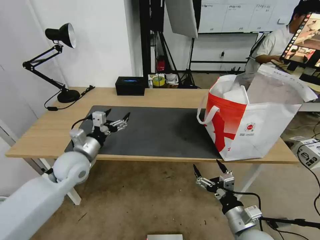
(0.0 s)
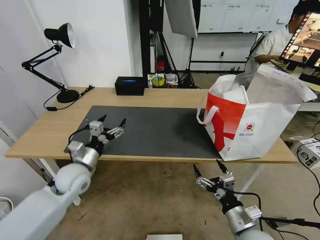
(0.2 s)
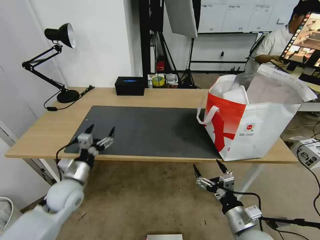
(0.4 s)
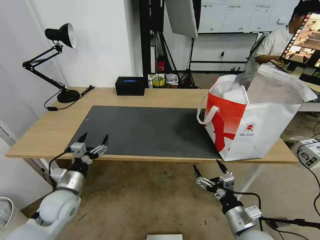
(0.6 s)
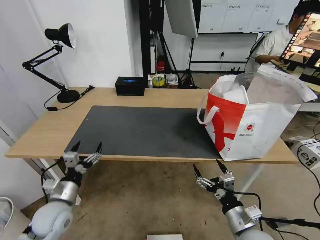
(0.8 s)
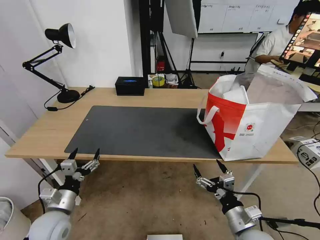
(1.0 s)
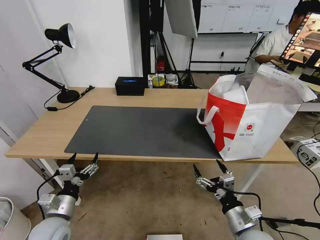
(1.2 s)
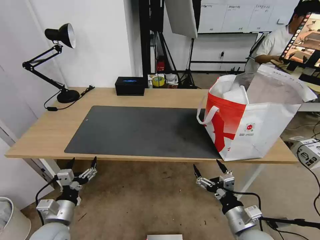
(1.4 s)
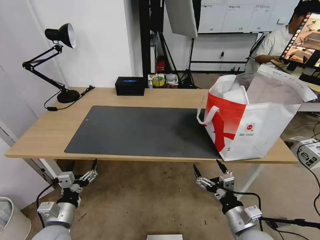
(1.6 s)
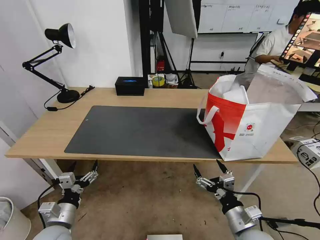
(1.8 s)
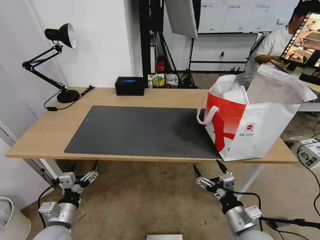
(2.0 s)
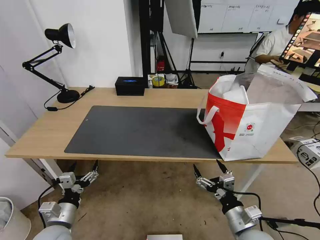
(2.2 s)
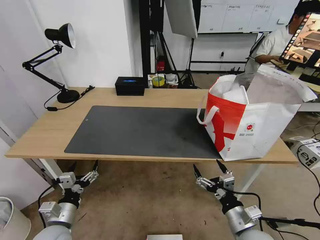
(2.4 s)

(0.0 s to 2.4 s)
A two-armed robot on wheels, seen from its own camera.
Task of the whole recording: Pick up the trash from the table and place it into the takeout bag.
0.0 s - 1.2 s: The left gripper shifts roughly 20 cm backward and downward.
1.2 s - 2.4 s: The grippers move only a little.

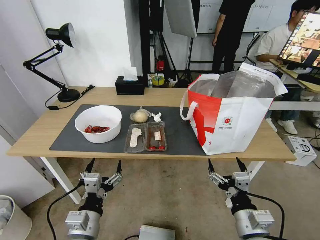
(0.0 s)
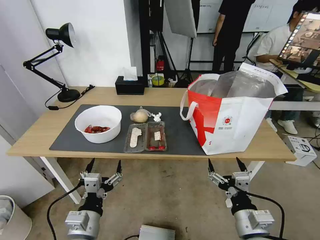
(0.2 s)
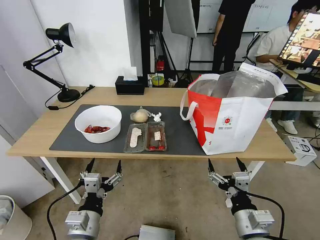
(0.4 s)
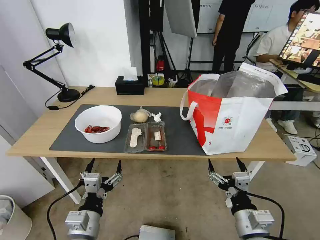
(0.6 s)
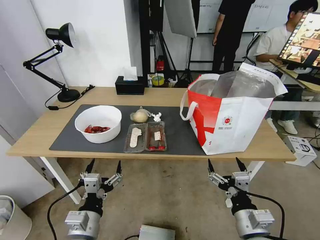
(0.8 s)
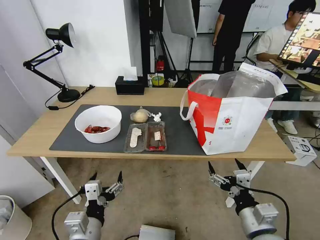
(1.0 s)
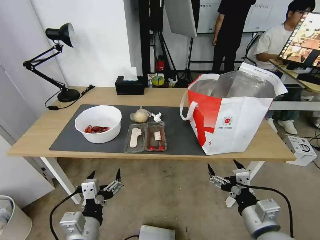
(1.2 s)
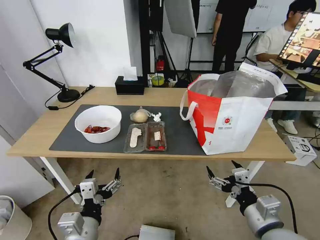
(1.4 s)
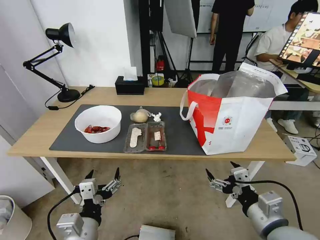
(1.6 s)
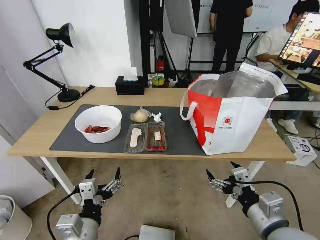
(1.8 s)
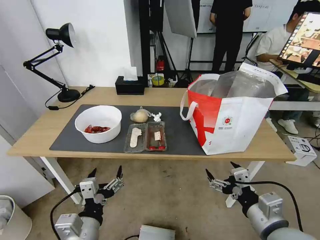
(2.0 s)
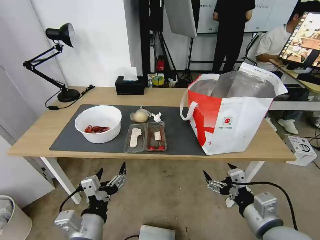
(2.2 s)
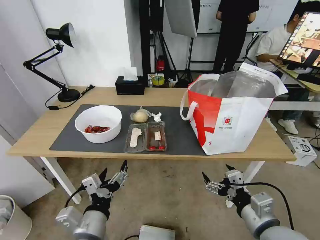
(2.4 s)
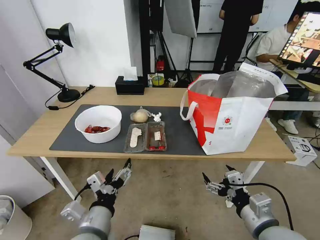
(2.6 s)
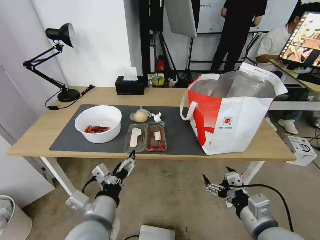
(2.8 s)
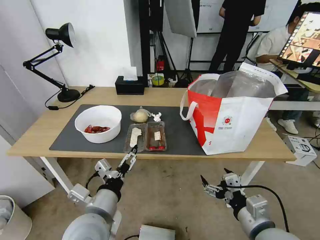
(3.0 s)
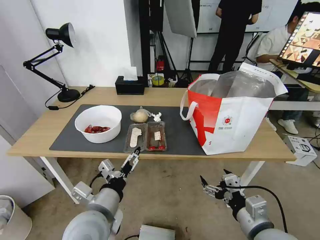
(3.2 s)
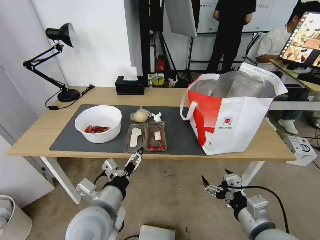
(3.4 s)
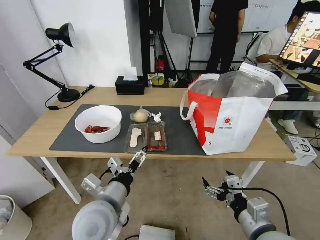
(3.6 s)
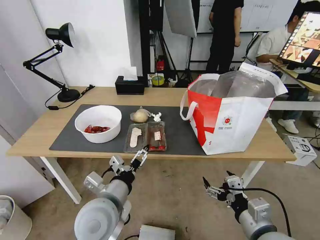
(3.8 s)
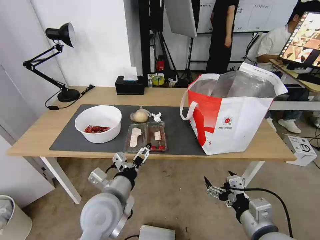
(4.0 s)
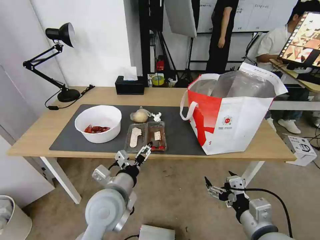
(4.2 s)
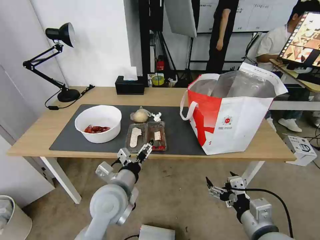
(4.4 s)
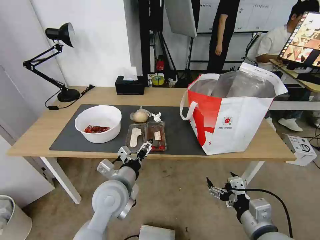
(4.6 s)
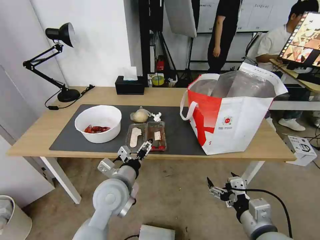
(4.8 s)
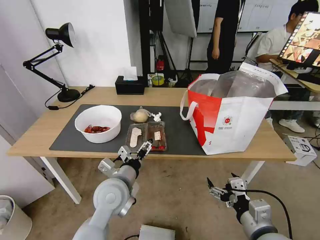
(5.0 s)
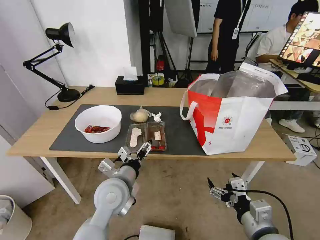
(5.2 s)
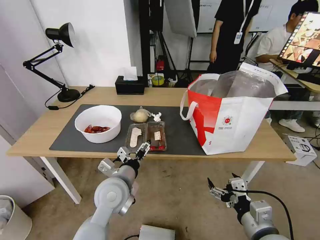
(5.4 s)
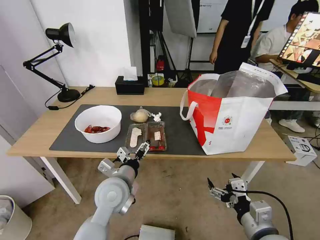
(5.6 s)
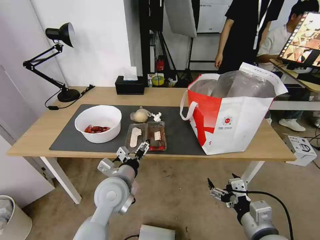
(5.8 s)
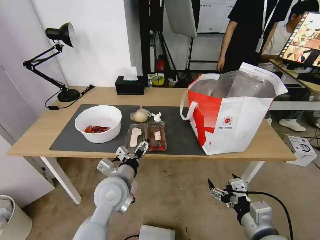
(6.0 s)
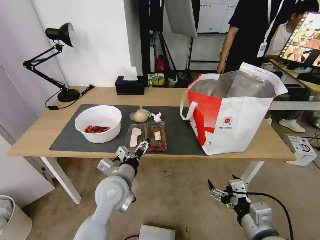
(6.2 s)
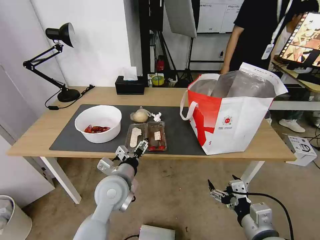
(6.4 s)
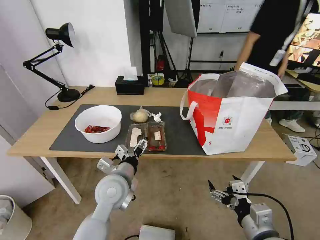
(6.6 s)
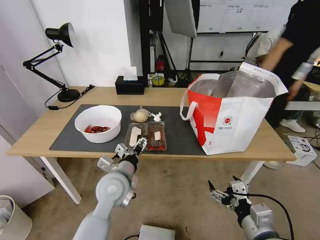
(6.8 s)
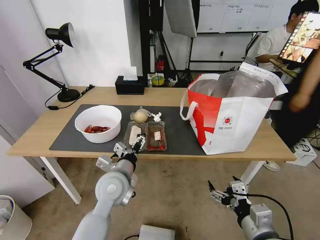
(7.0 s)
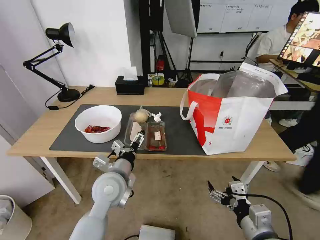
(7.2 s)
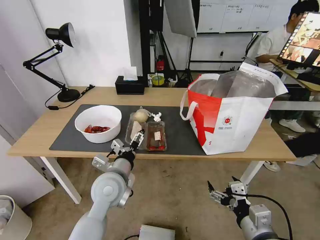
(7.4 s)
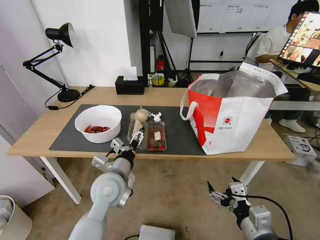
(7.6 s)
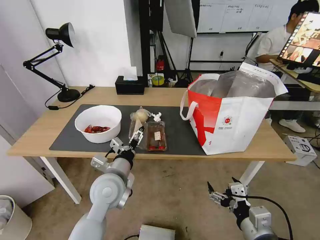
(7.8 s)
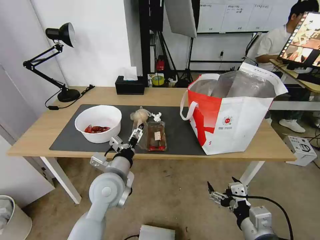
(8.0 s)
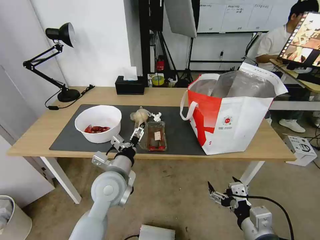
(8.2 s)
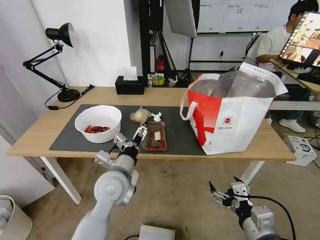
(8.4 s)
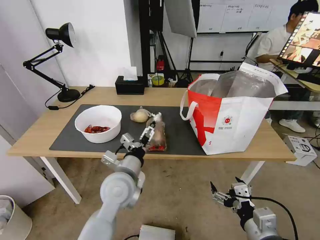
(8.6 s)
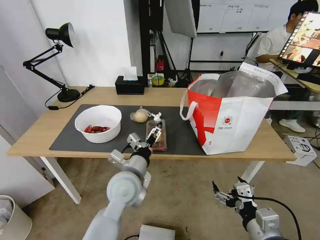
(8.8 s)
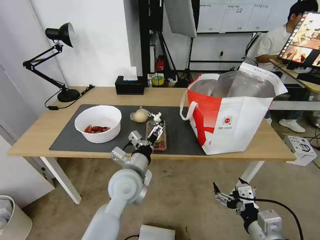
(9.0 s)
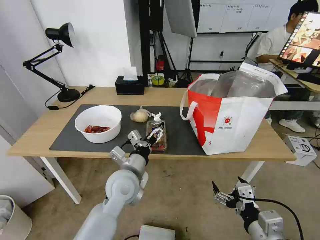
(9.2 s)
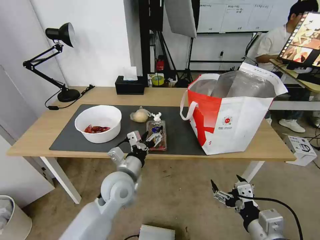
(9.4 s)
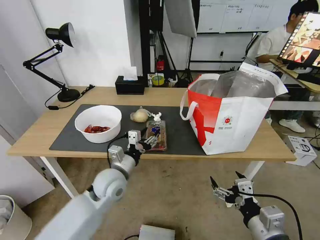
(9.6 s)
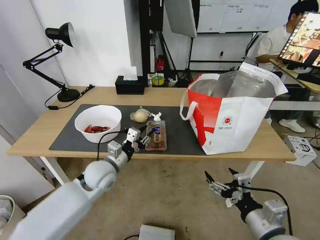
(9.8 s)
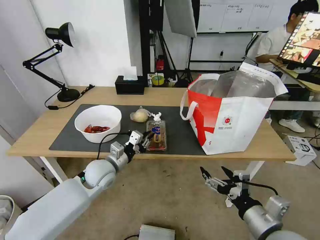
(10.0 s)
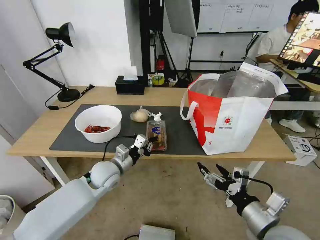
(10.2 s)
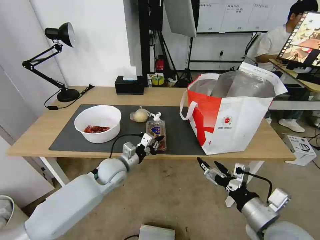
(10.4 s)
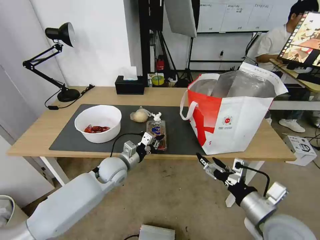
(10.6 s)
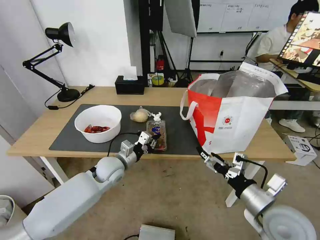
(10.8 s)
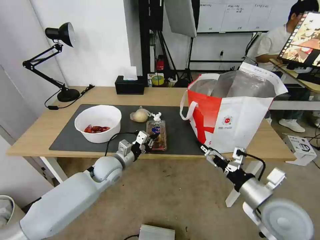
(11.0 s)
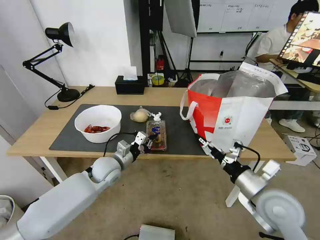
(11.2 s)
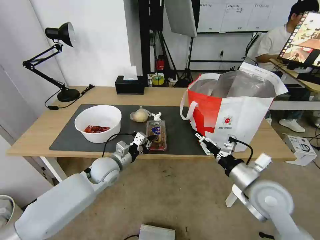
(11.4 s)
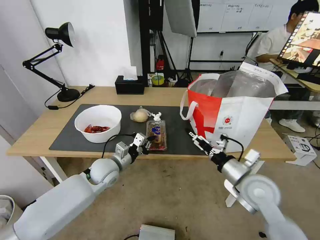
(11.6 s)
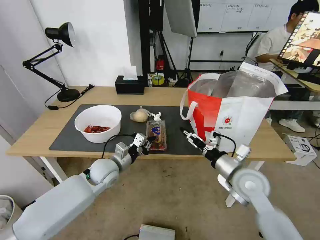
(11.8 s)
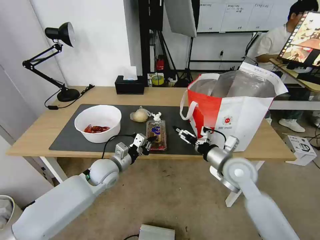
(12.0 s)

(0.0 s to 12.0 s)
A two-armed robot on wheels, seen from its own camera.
Task of the whole recording: Pick up the trash from the table and place it into the takeout bag.
1.6 s - 3.0 s: The left gripper goes roughly 5 cm forward.
3.0 s - 4.4 s: The left gripper travels forward by approximately 10 cm.
4.4 s - 9.0 s: There are only small adjustments of the grippers.
9.0 s - 10.4 s: The right gripper changes place by some 5 cm. The left gripper travels forward, to the left and downward by some 15 cm, and closes its fingers.
10.4 s - 12.0 s: The right gripper shifts about 15 cm forward.

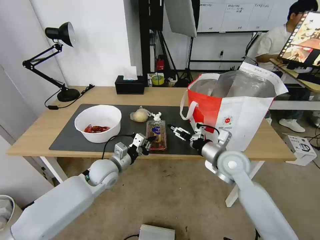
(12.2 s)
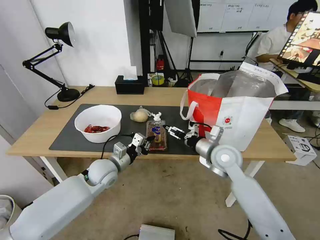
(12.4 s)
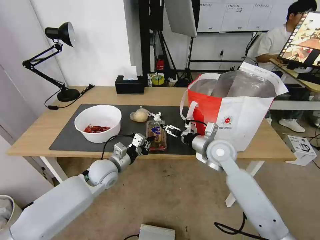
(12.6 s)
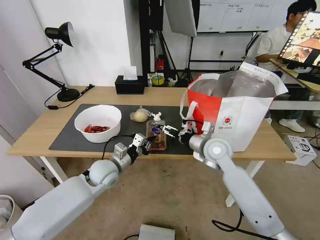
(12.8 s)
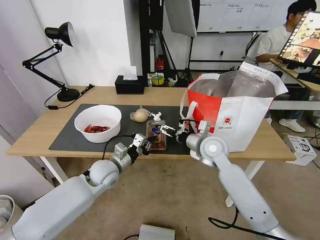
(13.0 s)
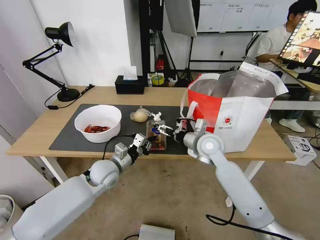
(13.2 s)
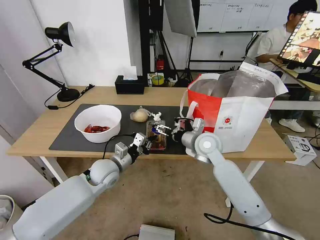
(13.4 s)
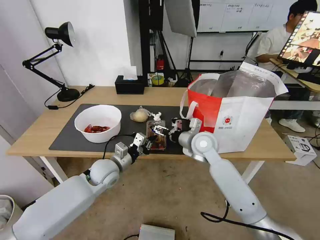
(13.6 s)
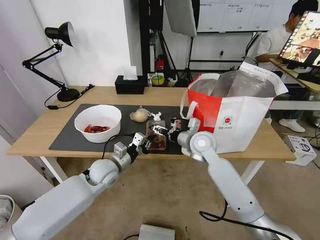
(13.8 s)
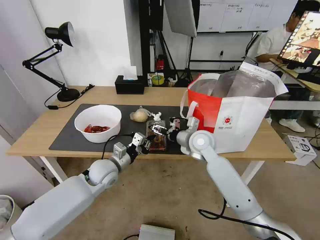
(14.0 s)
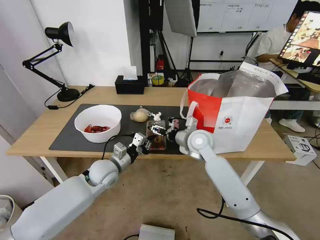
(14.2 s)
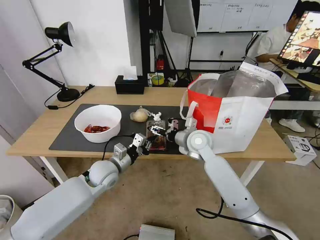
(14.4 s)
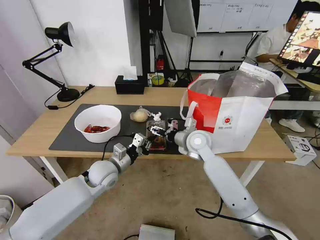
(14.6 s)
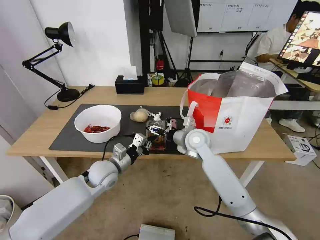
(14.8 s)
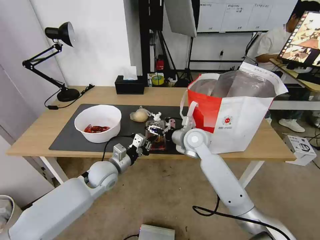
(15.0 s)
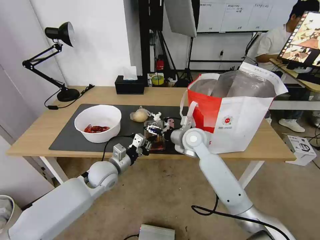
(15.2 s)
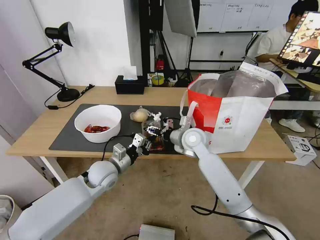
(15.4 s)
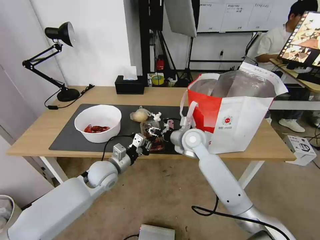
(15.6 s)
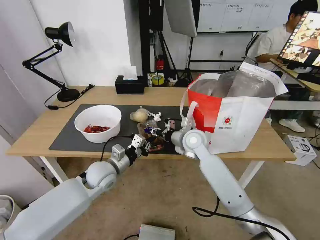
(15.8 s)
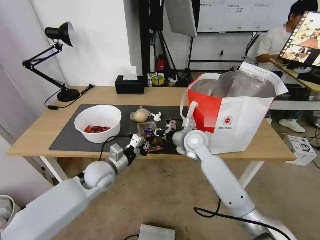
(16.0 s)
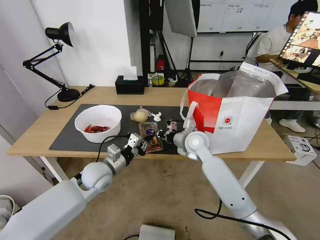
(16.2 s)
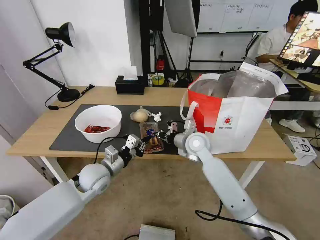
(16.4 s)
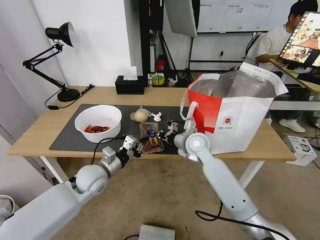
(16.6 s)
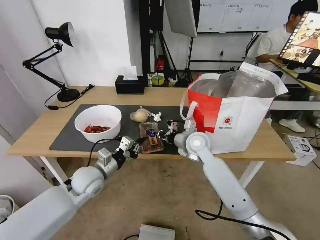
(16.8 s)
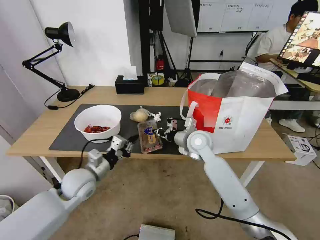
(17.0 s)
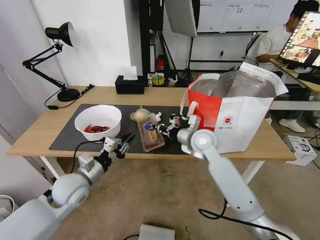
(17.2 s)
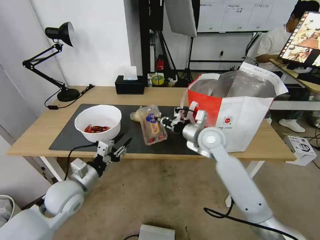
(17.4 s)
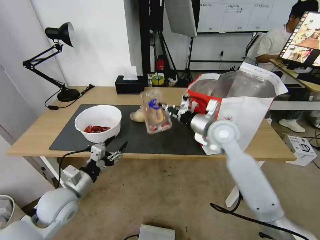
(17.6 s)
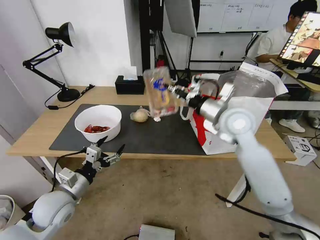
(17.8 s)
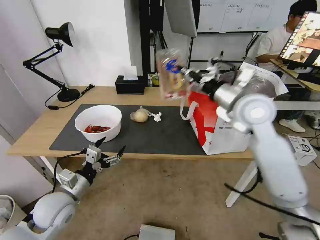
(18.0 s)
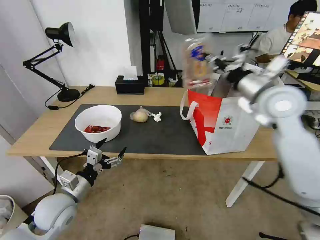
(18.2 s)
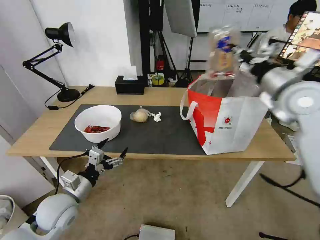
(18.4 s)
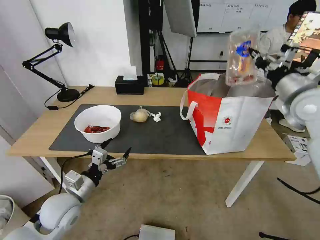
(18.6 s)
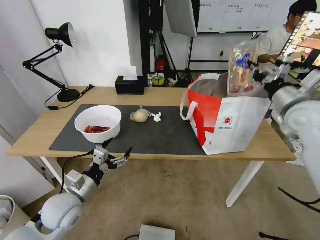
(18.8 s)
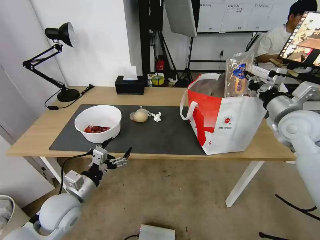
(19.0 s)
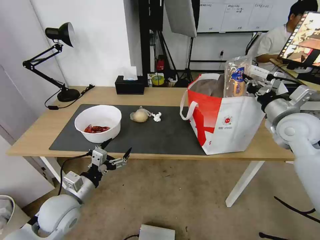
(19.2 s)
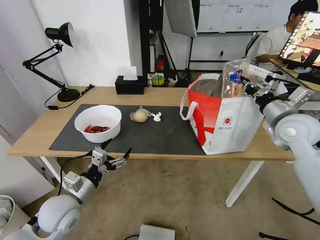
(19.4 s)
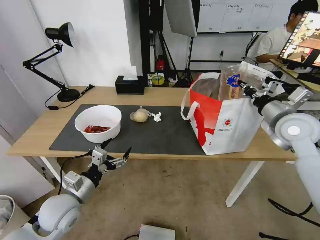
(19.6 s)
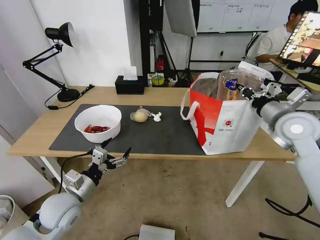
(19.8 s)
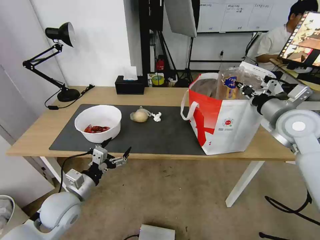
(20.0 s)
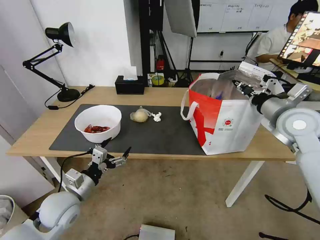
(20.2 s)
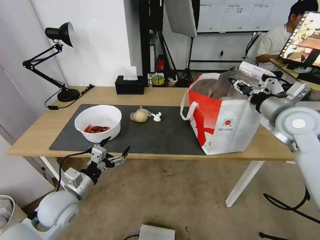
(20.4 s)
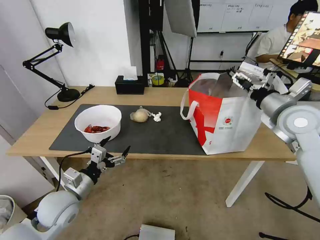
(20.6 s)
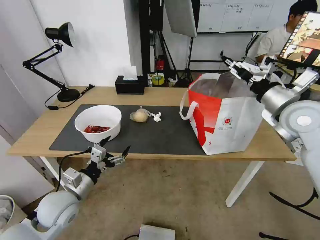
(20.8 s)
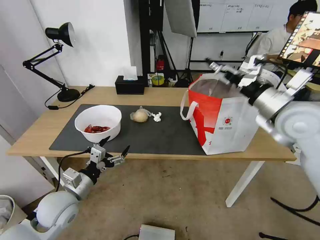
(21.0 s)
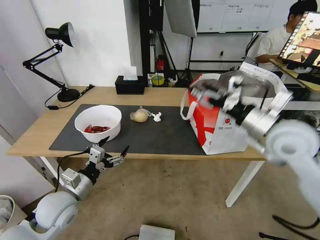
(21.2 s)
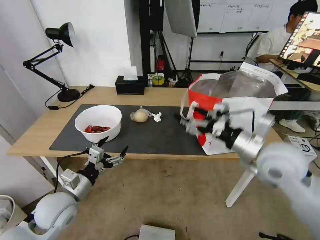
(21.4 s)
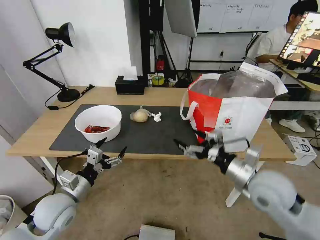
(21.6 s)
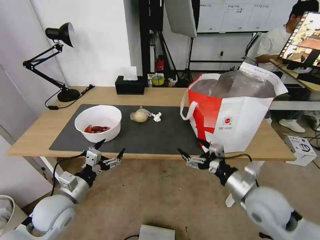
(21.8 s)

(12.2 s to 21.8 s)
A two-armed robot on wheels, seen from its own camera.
Task of the whole recording: Pick up the trash from the table and place it into the takeout bag.
12.2 s - 13.8 s: The right gripper moves to the left and forward, some 10 cm.
13.8 s - 15.4 s: The grippers make only small movements.
15.4 s - 17.0 s: The right gripper closes; the left gripper goes roughly 5 cm to the left.
17.0 s - 18.6 s: The left gripper moves backward, approximately 10 cm, and opens its fingers; the right gripper shifts roughly 30 cm to the right and upward.
18.6 s - 20.2 s: The right gripper moves roughly 5 cm.
20.2 s - 21.8 s: The right gripper shifts approximately 25 cm backward, downward and to the left, and opens its fingers.
